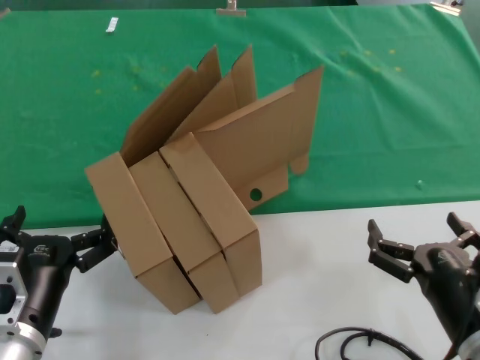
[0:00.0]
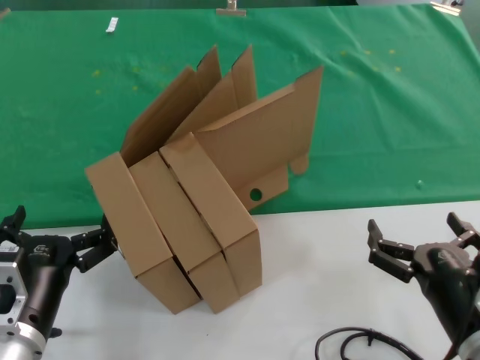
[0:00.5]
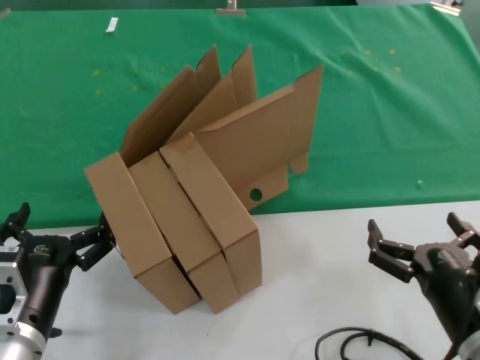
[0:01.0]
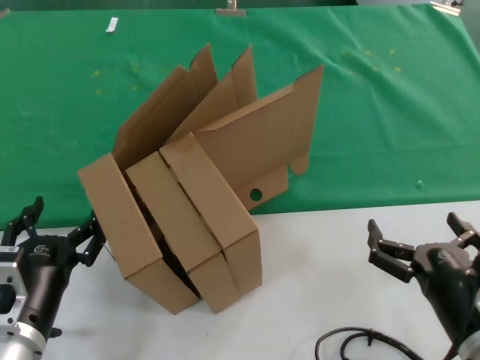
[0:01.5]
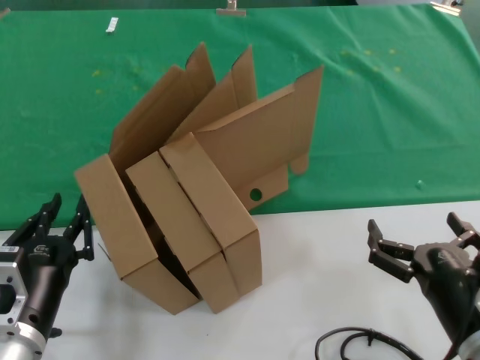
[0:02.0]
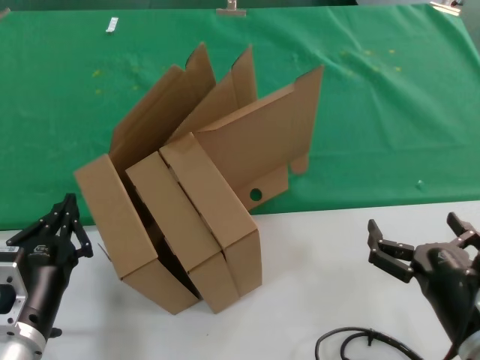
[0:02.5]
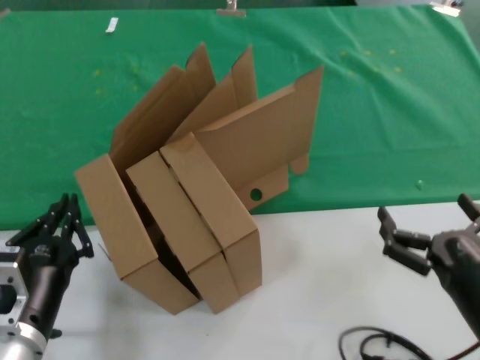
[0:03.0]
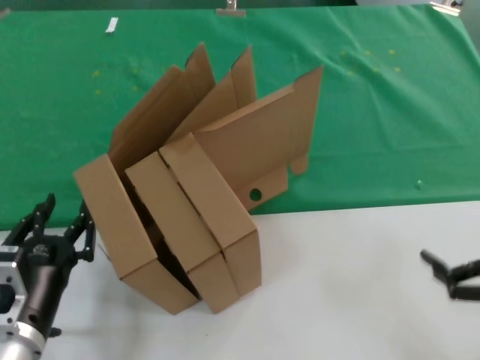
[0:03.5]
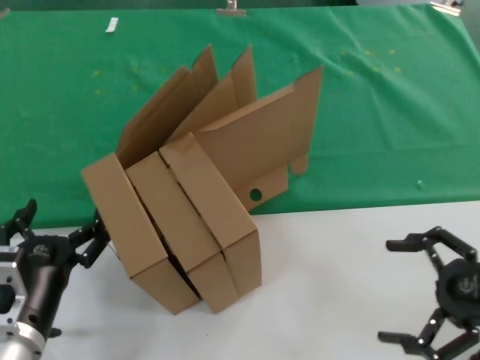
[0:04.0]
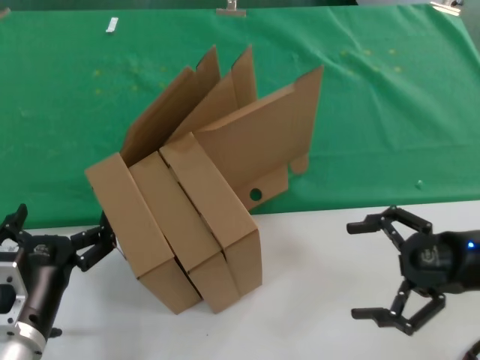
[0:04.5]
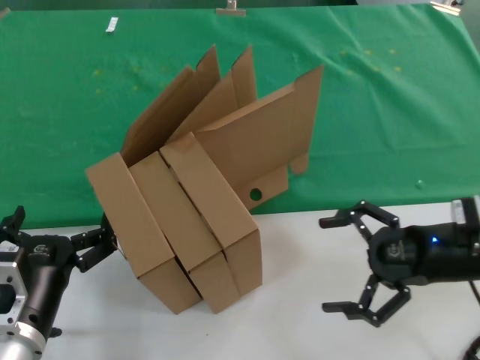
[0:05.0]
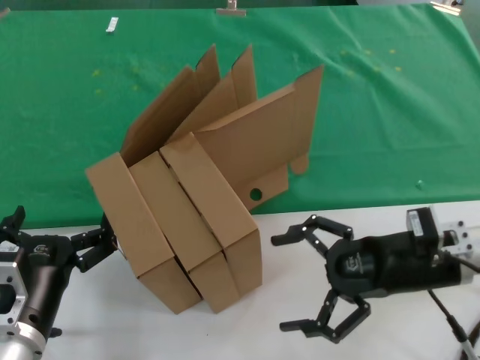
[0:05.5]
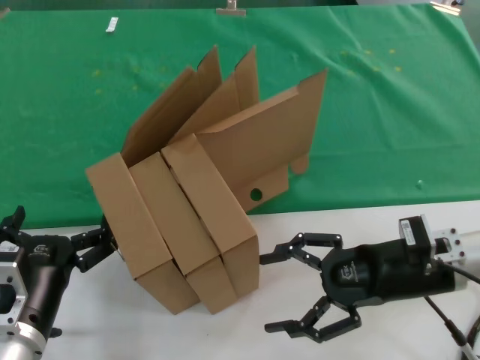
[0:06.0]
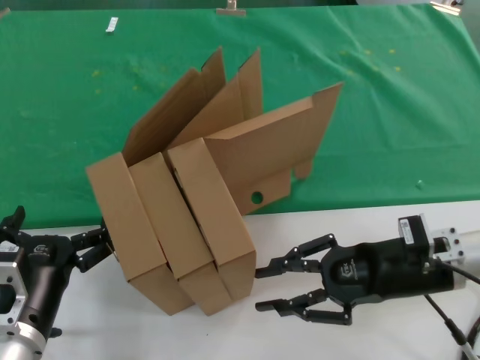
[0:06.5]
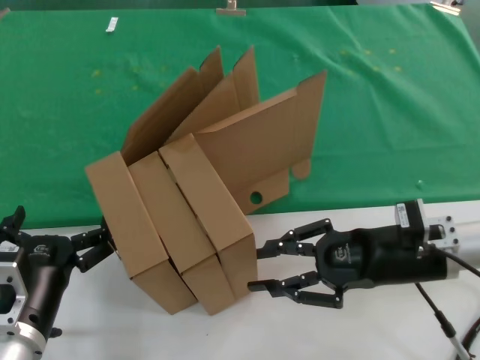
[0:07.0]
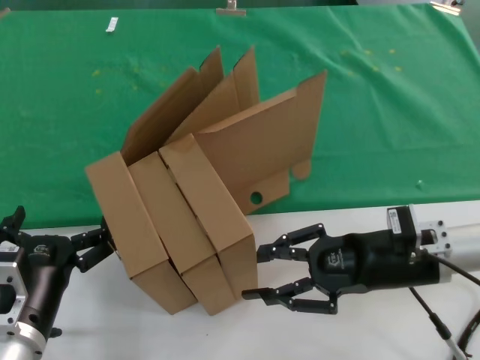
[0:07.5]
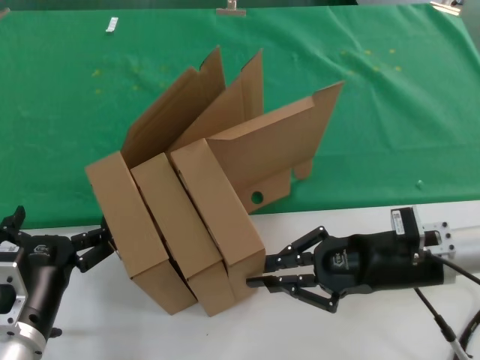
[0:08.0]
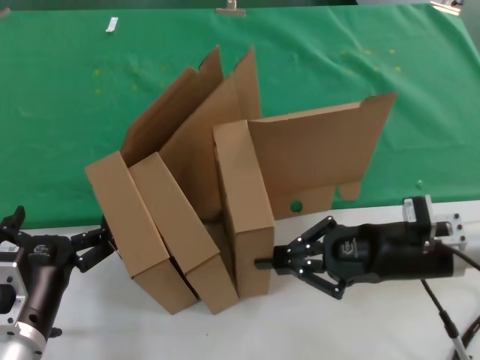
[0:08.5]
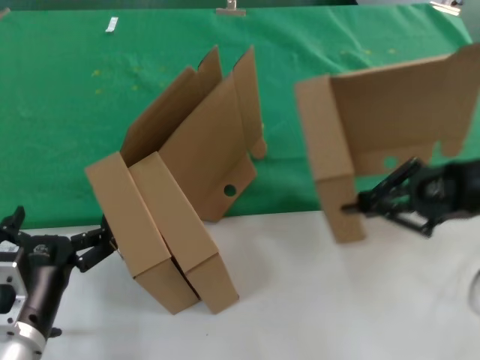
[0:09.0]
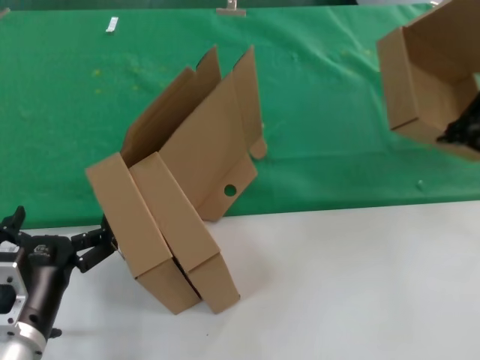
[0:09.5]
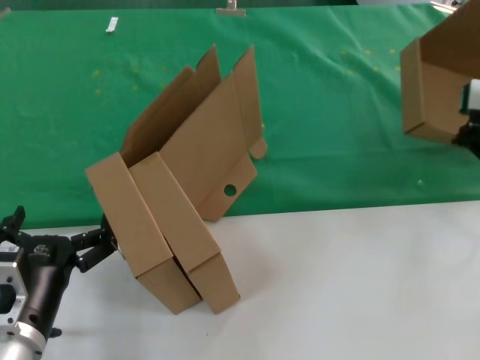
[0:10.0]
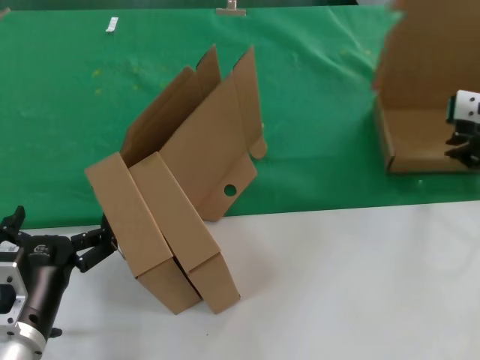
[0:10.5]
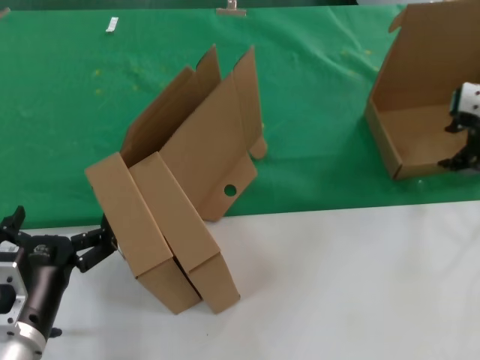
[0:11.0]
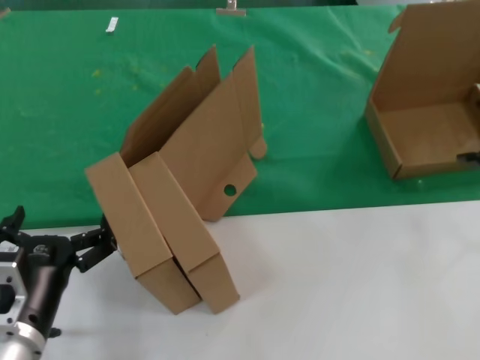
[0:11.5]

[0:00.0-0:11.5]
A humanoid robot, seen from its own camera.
Task of the whole recording: pick up the paper box and put it at the back.
Step, 0:00.0 to 0:08.0: Grasp the paper box.
Step, 0:08.5 to 0:10.5: Place the paper box on the table.
0:00.0 to 0:02.0: Neither hand changes place.
0:02.0 to 0:04.0: The right hand heads to the right and upward, covering about 20 cm.
0:04.0 to 0:06.0: The right hand shifts some 15 cm forward and to the left.
0:06.0 to 0:07.5: The two hands keep their place.
0:07.5 to 0:09.5: The right hand is displaced upward and to the right by roughly 25 cm.

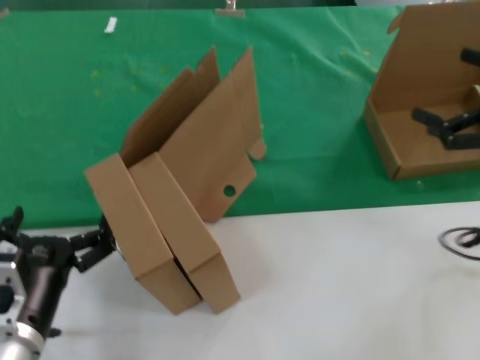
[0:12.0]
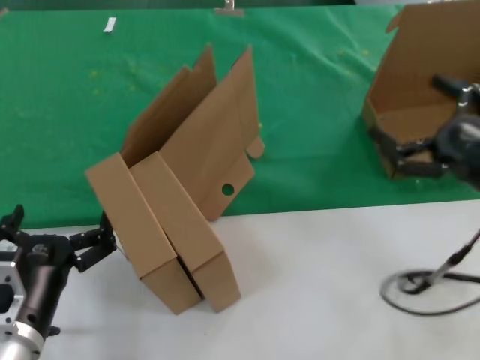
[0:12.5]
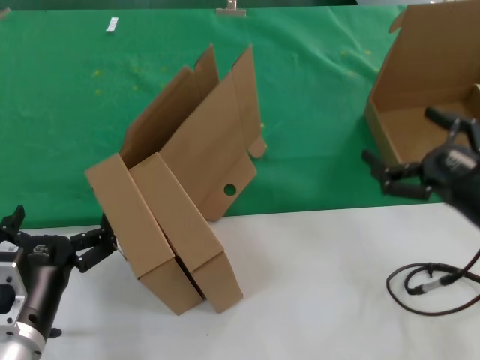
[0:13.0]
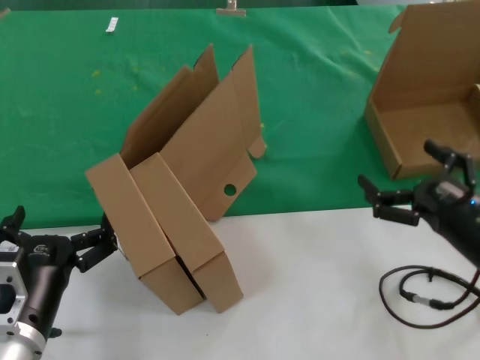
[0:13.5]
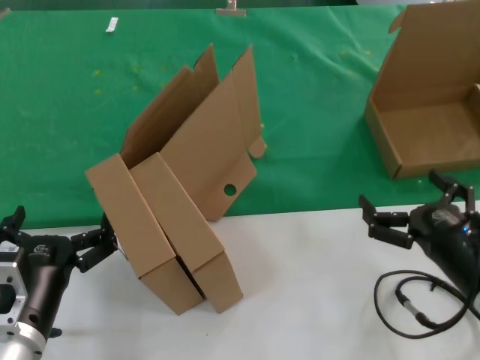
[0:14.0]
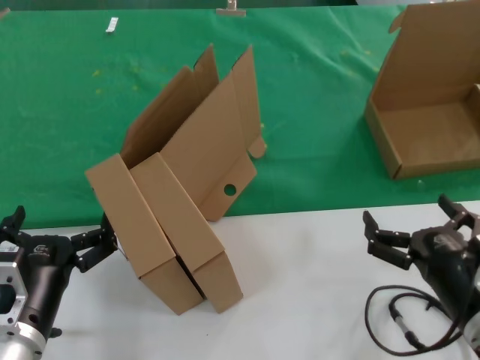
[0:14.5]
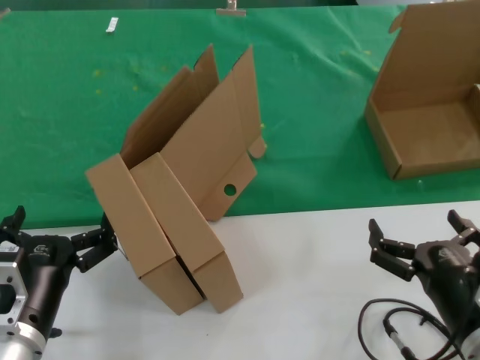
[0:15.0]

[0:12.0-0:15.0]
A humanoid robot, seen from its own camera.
Task of the whole recording: pick up the paper box and put it at the back.
0:12.0 to 0:13.5: The right hand shifts about 20 cm downward and to the left.
0:13.5 to 0:15.0: The right hand moves backward and to the left, some 10 cm.

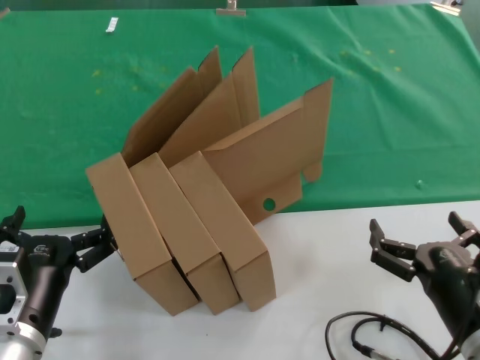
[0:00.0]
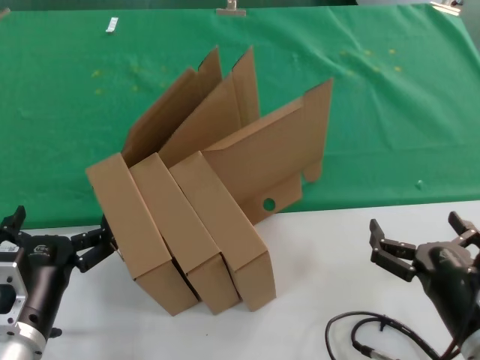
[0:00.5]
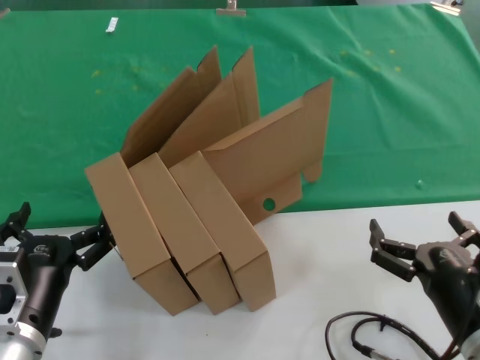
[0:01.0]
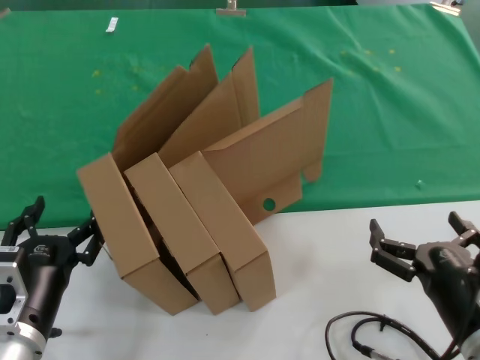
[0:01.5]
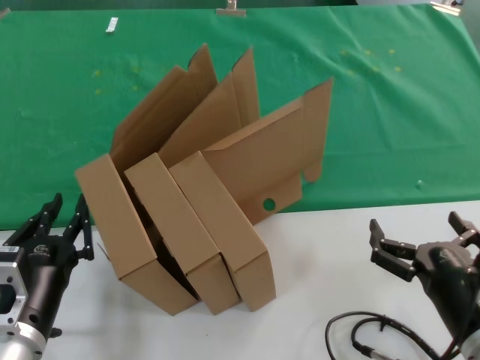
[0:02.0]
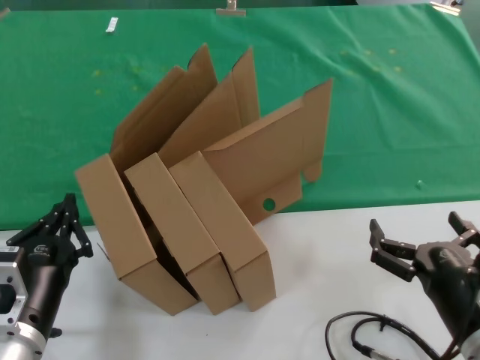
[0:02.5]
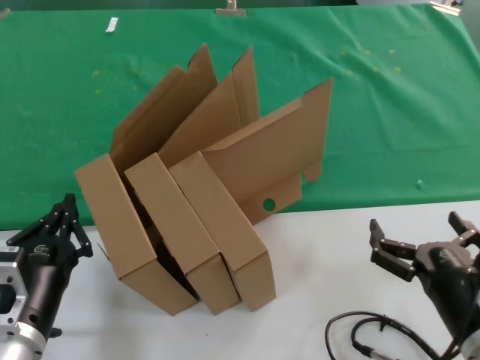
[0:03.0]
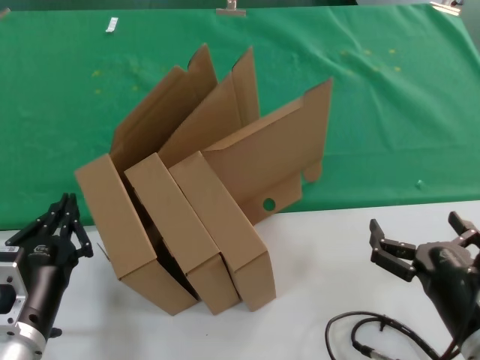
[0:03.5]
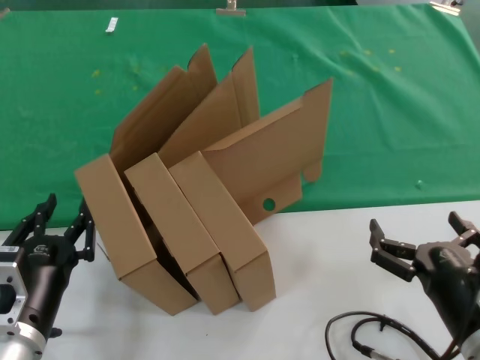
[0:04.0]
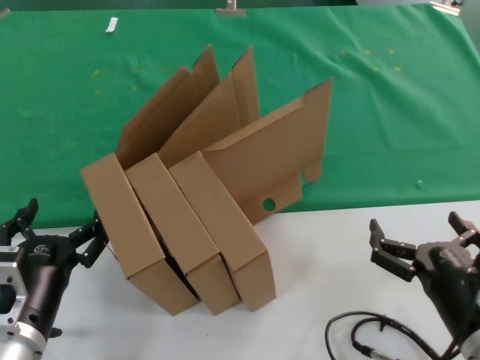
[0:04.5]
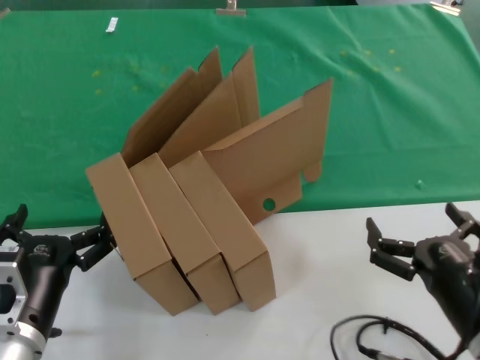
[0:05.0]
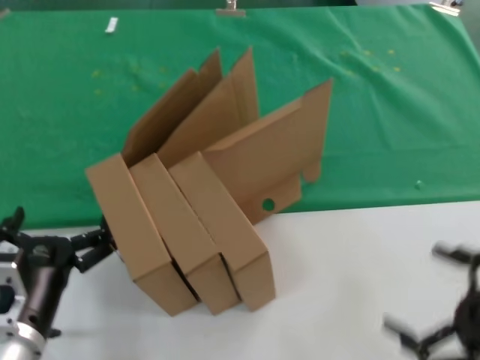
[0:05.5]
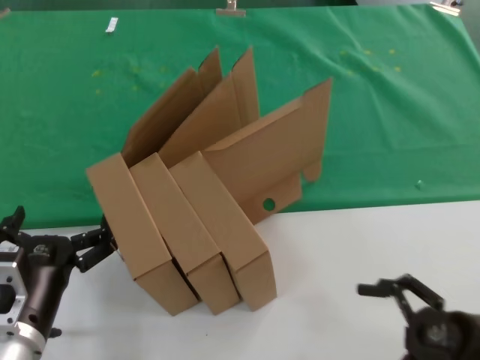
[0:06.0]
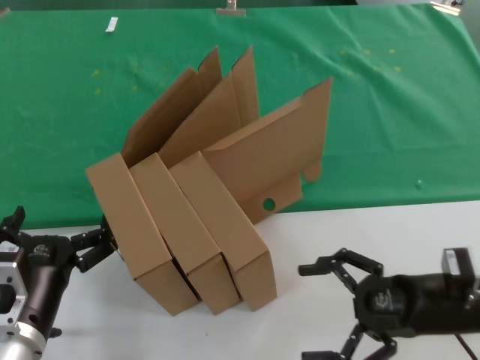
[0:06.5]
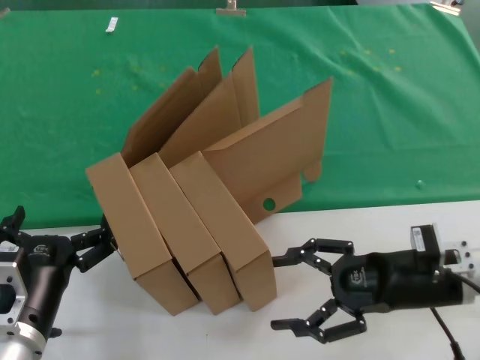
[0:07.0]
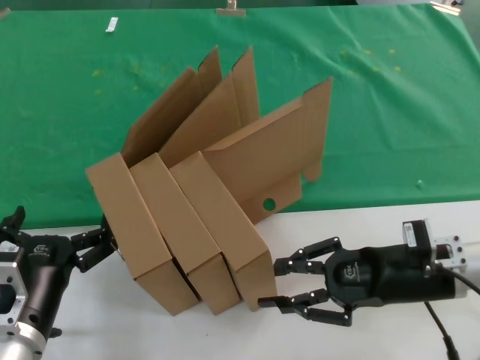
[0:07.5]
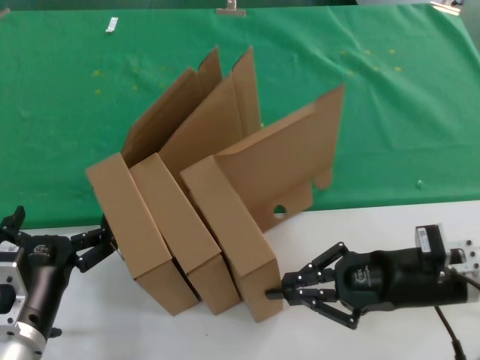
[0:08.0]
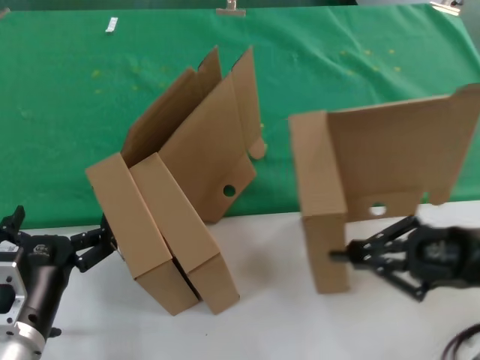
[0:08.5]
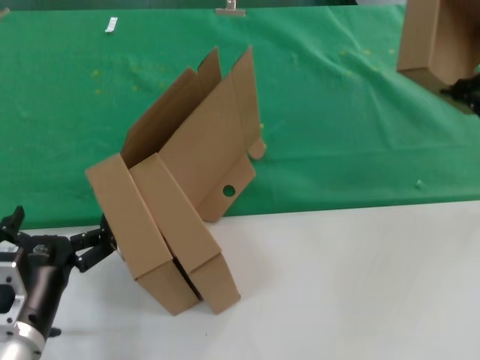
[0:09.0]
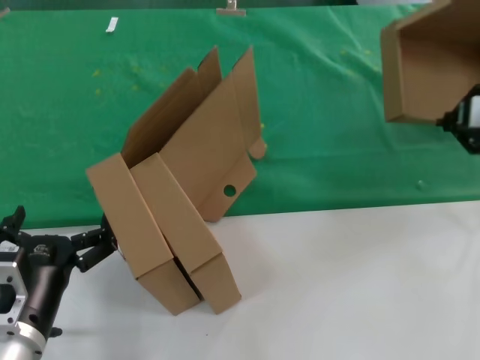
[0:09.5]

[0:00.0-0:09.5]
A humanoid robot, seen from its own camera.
Task of the whole recording: pick up the paper box and put it at the back.
Step, 0:00.0 to 0:08.0: Grasp the paper box.
0:00.0 to 0:04.0: Neither hand changes place.
0:04.0 to 0:05.5: The right hand travels to the right by about 10 cm.
0:05.5 to 0:07.5: The right hand moves forward, approximately 20 cm.
0:07.5 to 0:09.5: The right hand heads upward and to the right, covering roughly 20 cm.

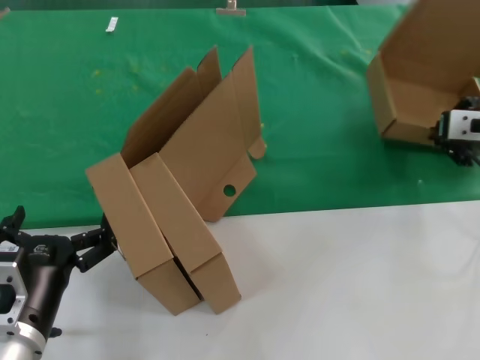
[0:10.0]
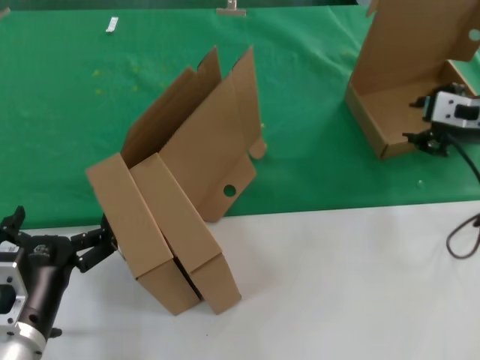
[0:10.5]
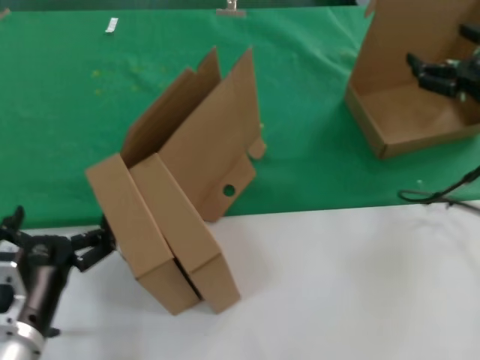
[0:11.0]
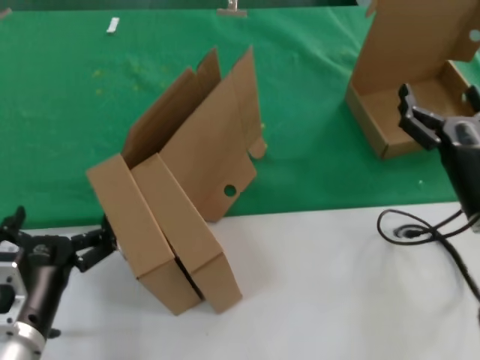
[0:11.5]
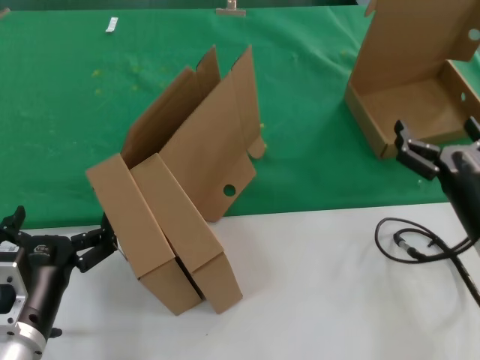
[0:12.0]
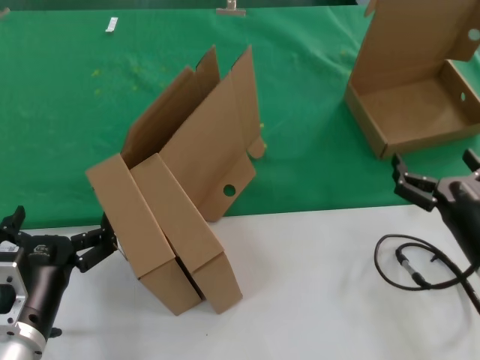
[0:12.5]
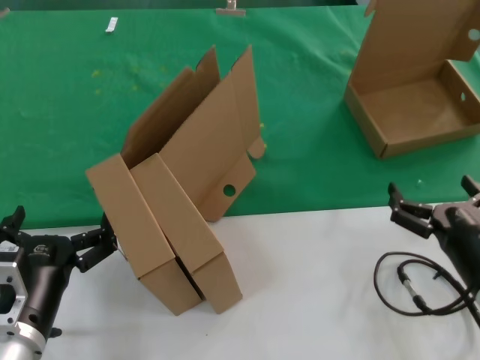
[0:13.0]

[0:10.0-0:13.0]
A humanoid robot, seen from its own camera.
Task of the whole recording: pick up the paper box and put it at the back.
0:10.0 to 0:11.5: The right hand moves downward and backward, about 20 cm.
0:11.5 to 0:13.0: The right hand heads backward, covering approximately 10 cm.
